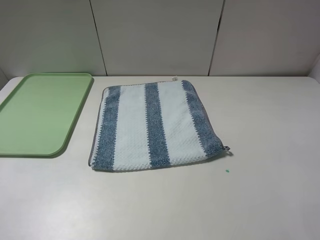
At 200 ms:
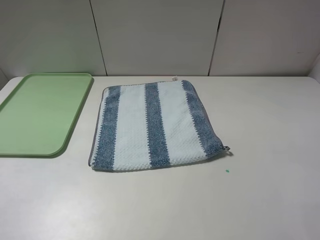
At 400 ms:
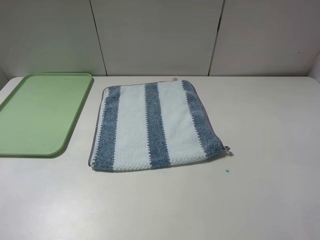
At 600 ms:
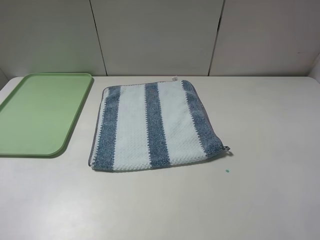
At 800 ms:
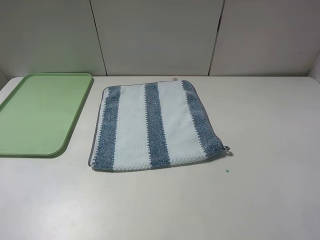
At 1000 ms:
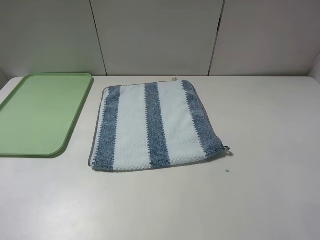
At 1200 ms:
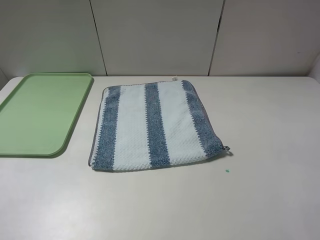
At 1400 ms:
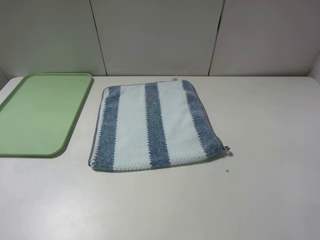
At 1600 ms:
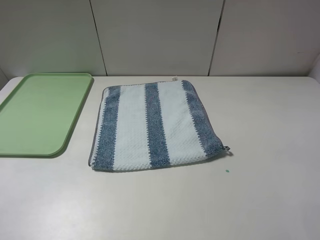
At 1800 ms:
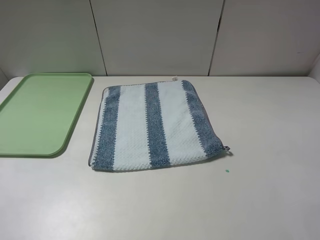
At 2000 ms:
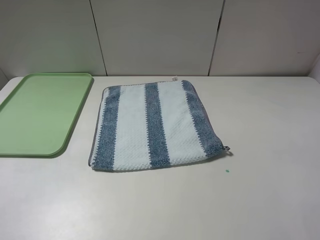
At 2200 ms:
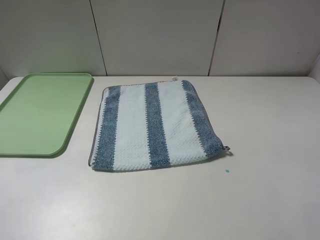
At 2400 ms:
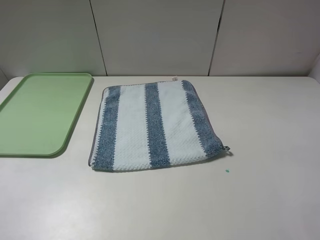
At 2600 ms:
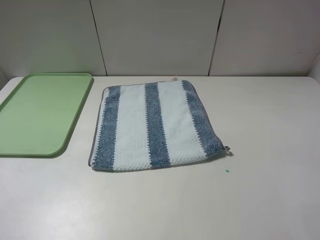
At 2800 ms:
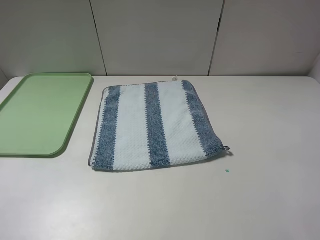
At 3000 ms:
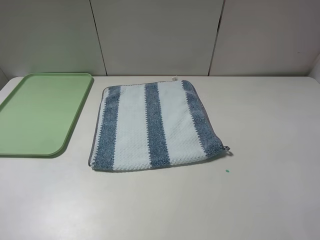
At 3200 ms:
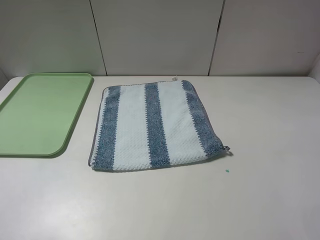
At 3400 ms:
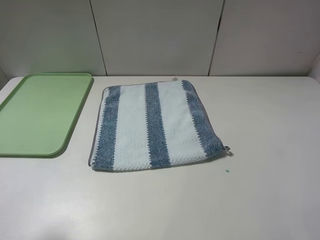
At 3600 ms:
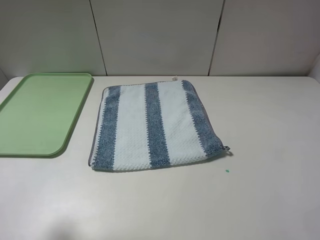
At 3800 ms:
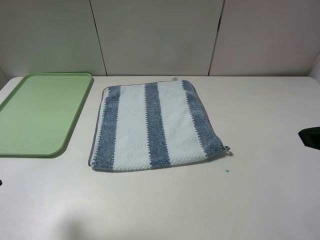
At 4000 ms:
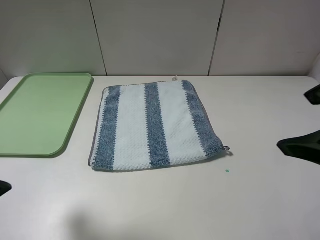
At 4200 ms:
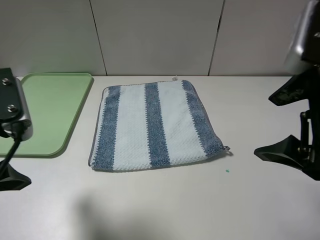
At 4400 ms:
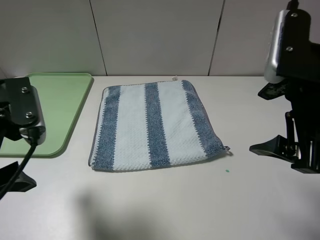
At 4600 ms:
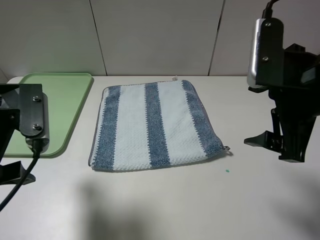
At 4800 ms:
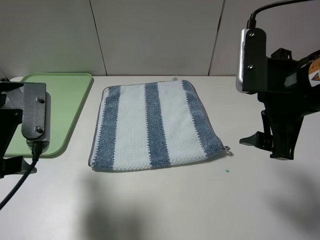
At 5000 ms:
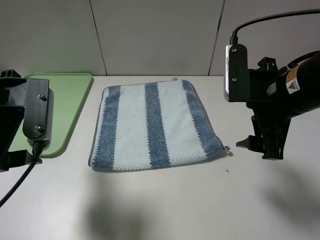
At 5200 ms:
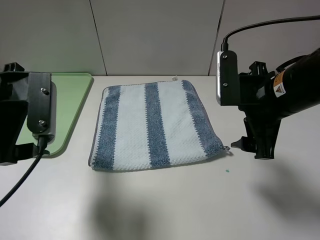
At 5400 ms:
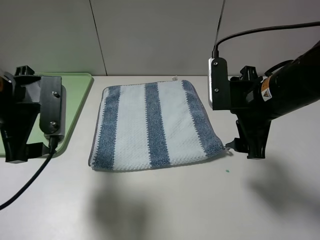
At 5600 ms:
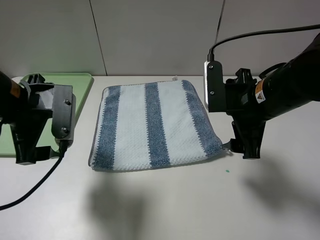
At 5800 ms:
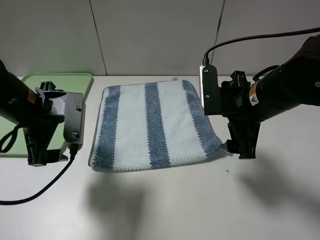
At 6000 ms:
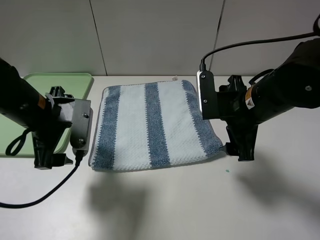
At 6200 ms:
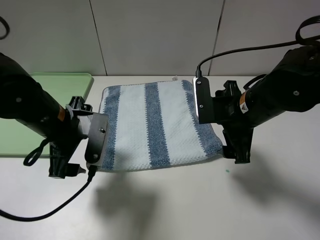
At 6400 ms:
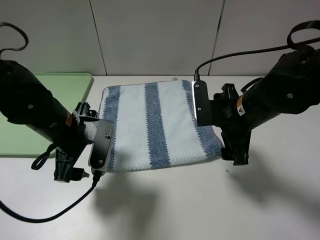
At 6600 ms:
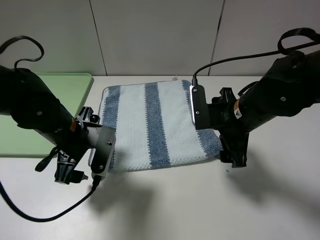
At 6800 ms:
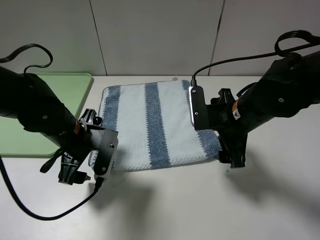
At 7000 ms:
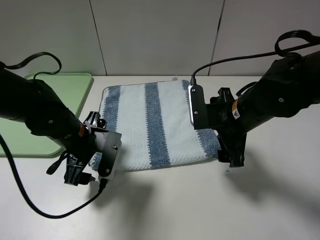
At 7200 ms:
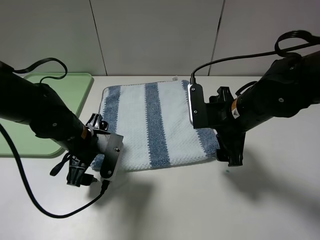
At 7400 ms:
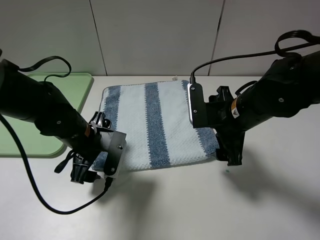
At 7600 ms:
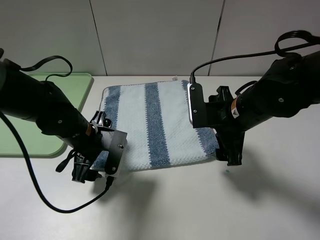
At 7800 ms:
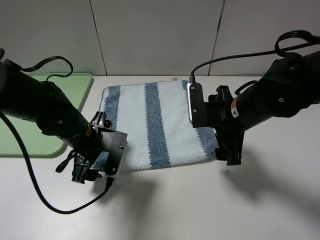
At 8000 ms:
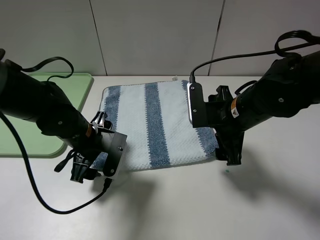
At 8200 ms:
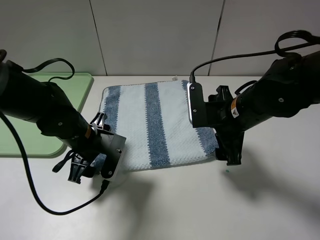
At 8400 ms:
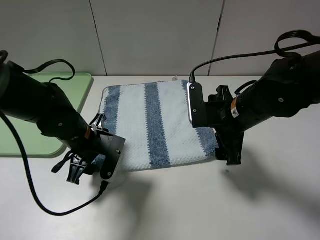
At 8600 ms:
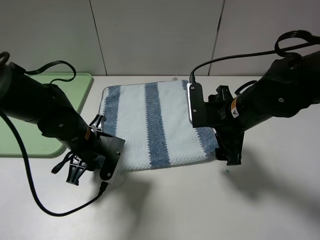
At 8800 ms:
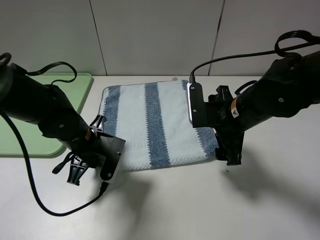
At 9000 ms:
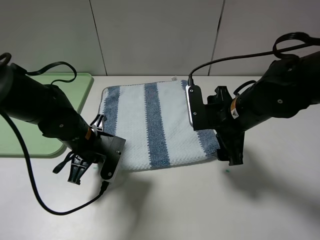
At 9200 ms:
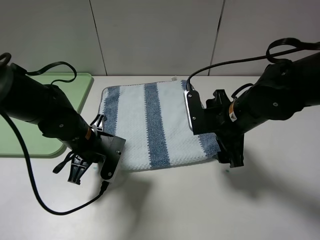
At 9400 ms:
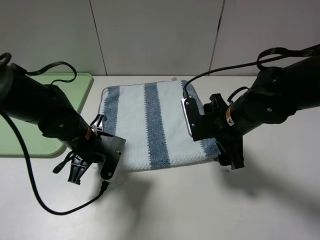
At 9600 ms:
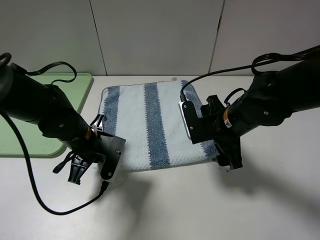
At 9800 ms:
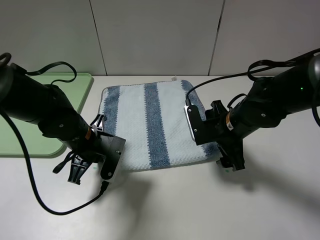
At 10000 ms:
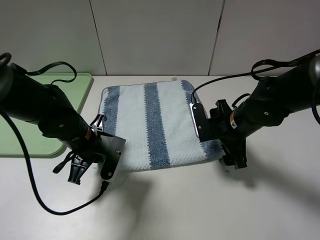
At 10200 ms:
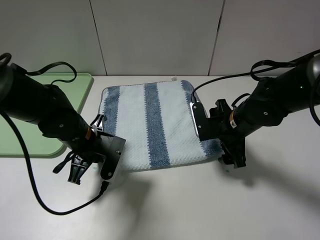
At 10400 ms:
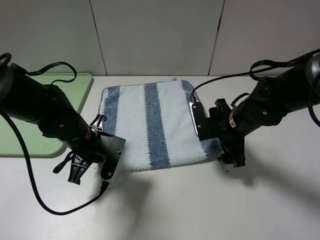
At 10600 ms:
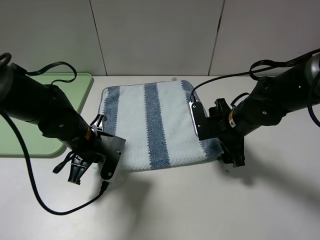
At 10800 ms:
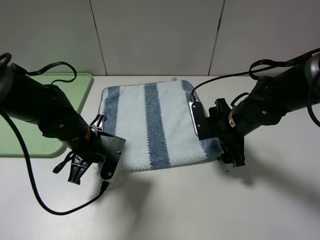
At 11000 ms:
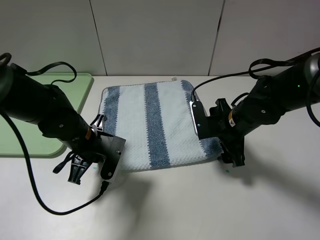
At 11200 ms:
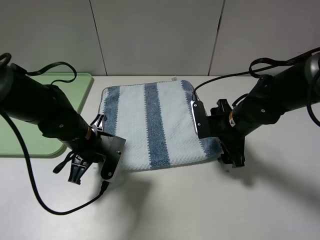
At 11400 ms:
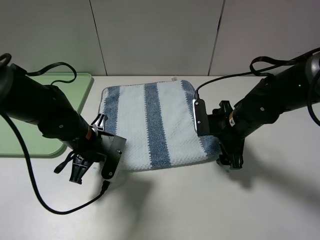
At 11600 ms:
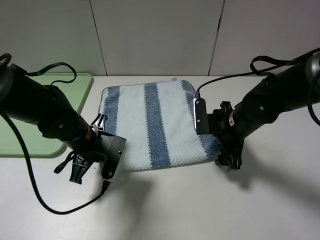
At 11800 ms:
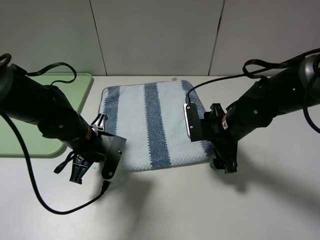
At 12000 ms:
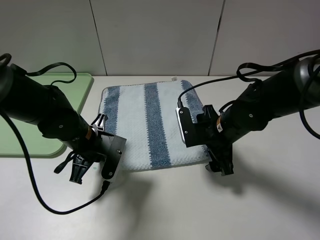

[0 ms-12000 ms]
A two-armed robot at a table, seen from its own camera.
Step, 0 ms to 9400 ms: Grasp the blue white towel with the left gripper.
0 ms to 1600 ms: Neither gripper changes place.
3000 ms to 4400 ms: The left gripper shifts approximately 15 cm forward and to the right, while the right gripper moves forward and to the left, roughly 15 cm.
4400 ms to 6000 ms: The grippers both shift downward and forward by some 10 cm.
6000 ms to 7600 ms: The left gripper heads downward, covering about 10 cm.
7600 ms to 9000 ms: The left gripper closes its fingers.
9000 ms to 10400 ms: The right gripper goes roughly 5 cm downward.
10400 ms to 12000 ms: The grippers make only small movements.

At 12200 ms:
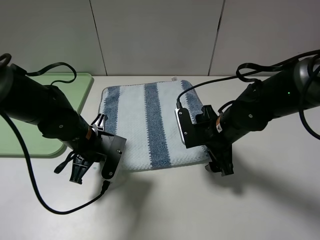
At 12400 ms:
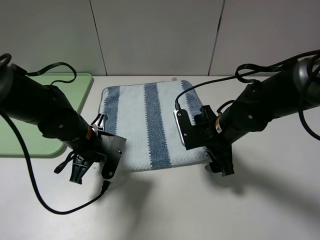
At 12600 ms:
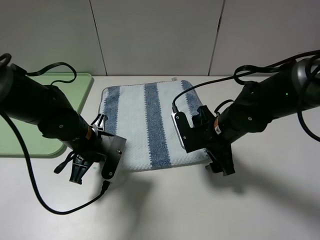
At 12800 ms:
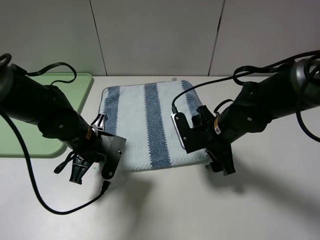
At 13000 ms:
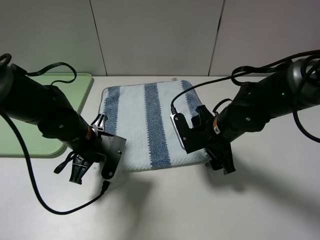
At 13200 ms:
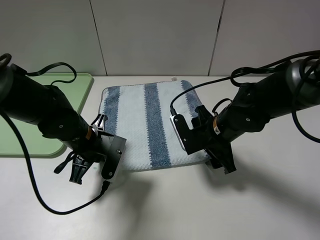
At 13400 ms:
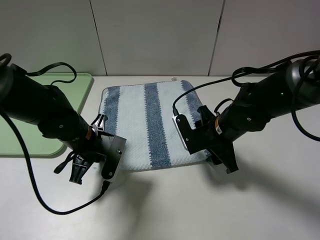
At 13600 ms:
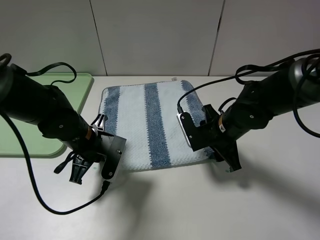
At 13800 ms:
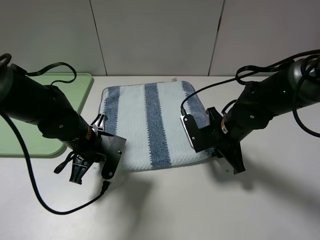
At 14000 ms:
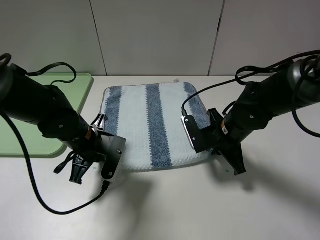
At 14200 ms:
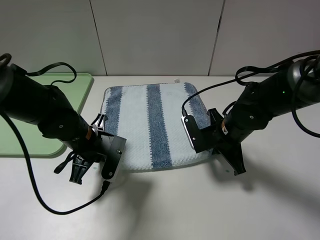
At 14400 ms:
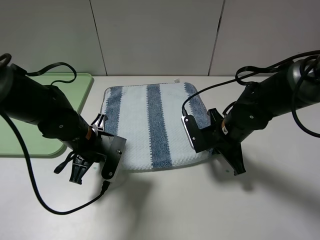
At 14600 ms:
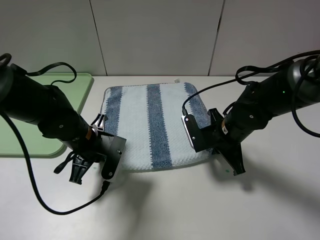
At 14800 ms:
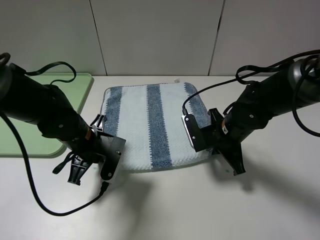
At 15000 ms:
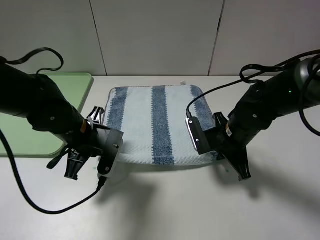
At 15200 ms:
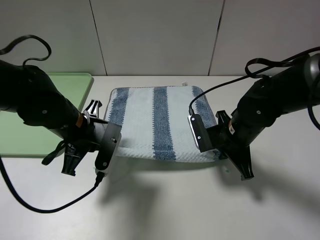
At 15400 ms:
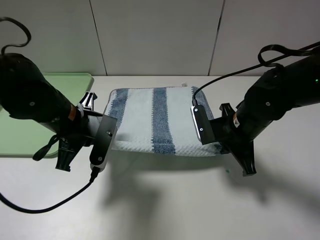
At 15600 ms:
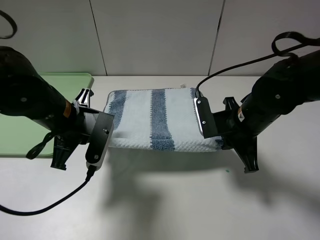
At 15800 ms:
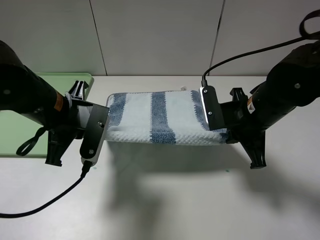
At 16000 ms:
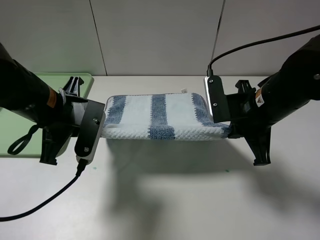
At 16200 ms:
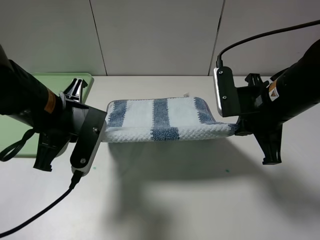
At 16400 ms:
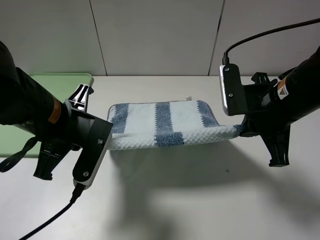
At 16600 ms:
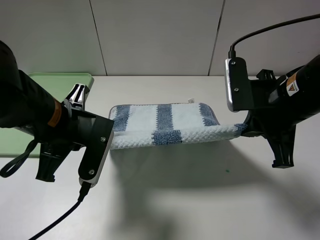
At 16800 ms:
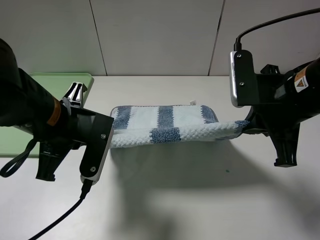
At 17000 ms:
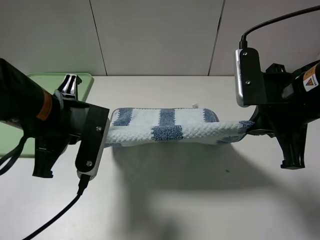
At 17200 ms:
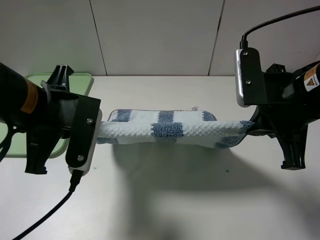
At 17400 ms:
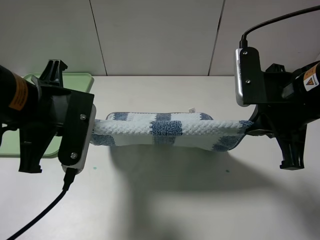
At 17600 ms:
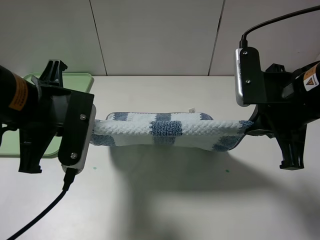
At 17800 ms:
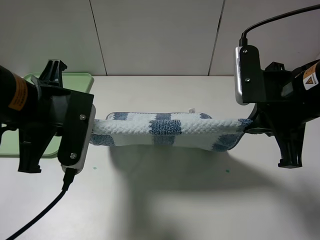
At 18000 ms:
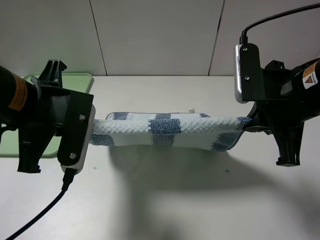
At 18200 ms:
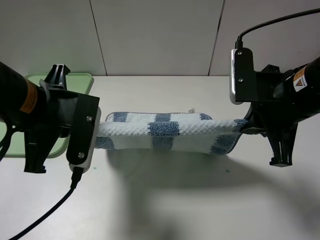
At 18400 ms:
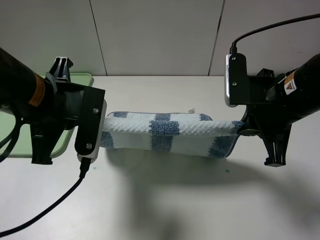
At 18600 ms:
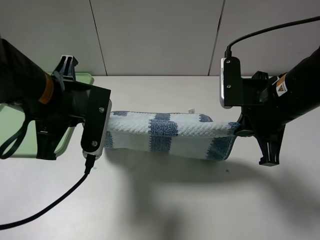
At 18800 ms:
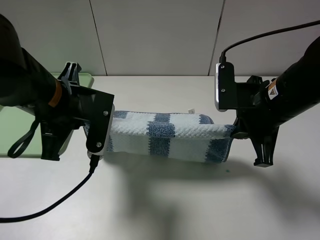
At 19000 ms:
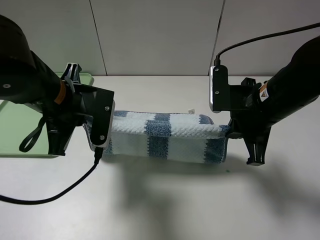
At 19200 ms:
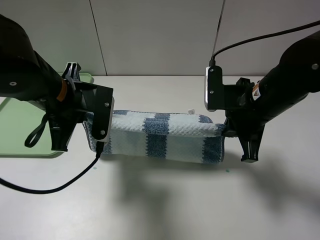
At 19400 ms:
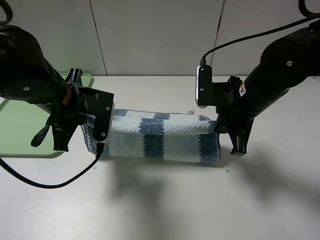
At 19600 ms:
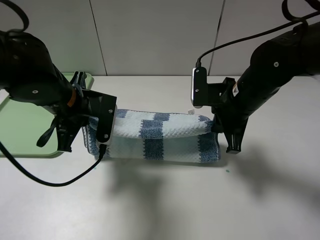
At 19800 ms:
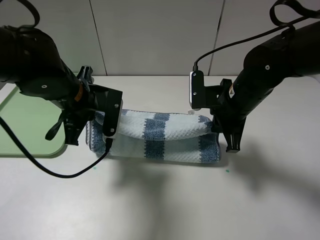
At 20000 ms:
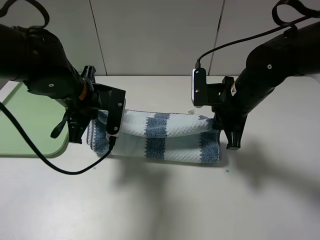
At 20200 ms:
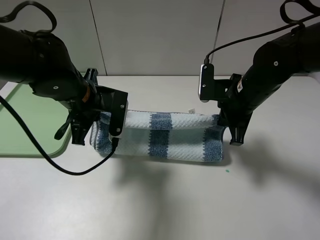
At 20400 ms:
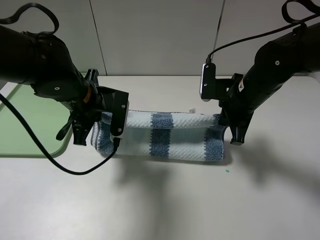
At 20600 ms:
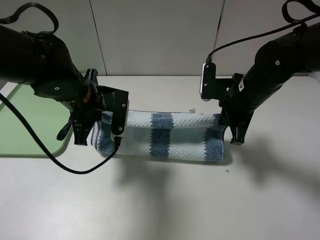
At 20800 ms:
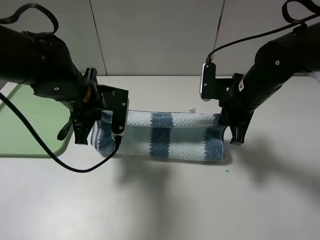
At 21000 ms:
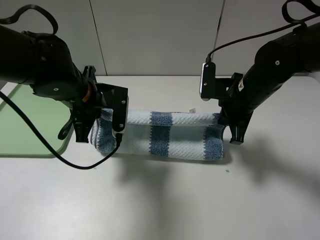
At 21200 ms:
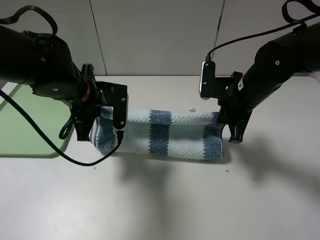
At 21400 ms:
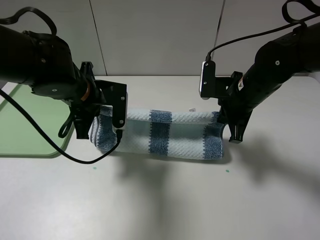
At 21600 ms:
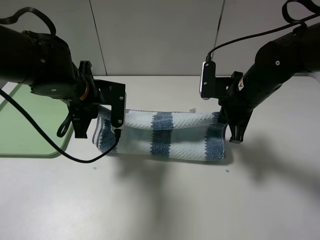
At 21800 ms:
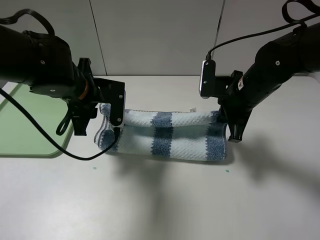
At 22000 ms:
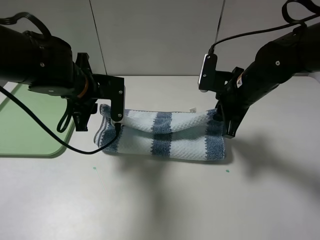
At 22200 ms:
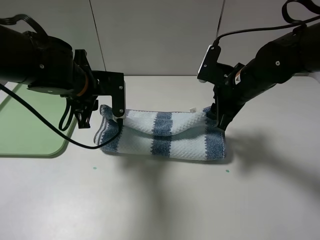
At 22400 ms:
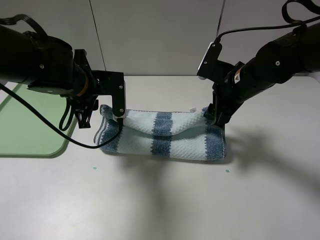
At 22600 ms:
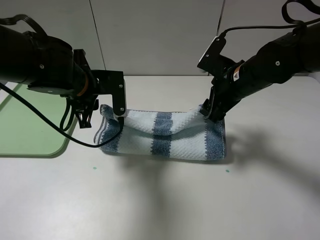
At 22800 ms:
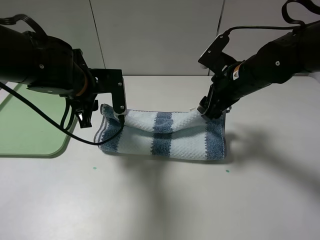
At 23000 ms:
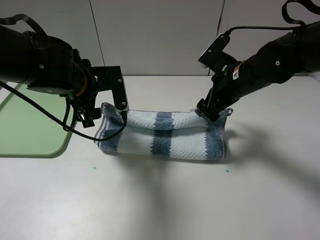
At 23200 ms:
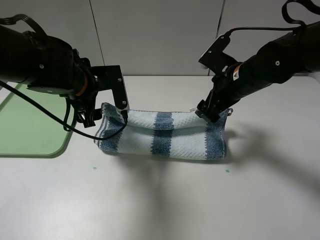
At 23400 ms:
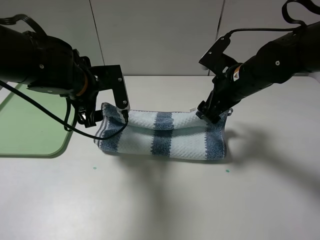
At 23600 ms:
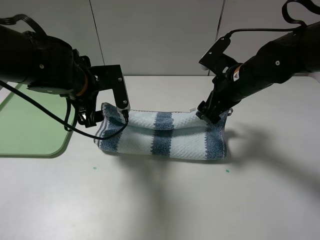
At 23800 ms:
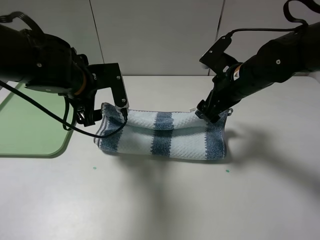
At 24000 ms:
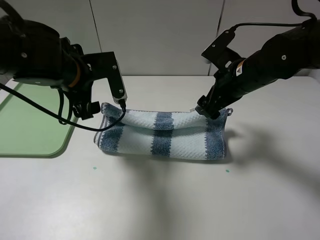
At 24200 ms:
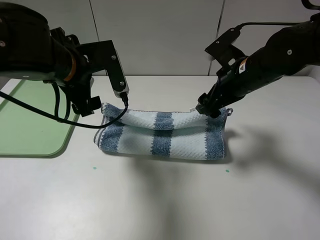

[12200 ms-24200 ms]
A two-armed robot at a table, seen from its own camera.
Step, 12200 ms to 15200 ms: Grasp the blue white towel with the right gripper.
12200 ms to 13800 ms: The right gripper closes up.
13800 ms to 15200 ms: The grippers make only small movements.
15200 ms to 16600 ms: The right gripper shifts roughly 15 cm upward and backward, while the left gripper travels upward and backward by approximately 10 cm.
16600 ms to 18200 ms: The grippers make only small movements.
18200 ms to 19800 ms: Both grippers move forward and downward, about 10 cm.
21200 ms to 22600 ms: The left gripper opens; the right gripper opens its fingers.
22600 ms to 24200 ms: The left gripper moves upward, some 5 cm, and opens.
